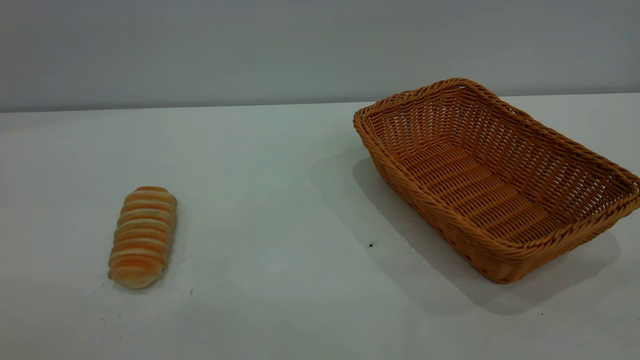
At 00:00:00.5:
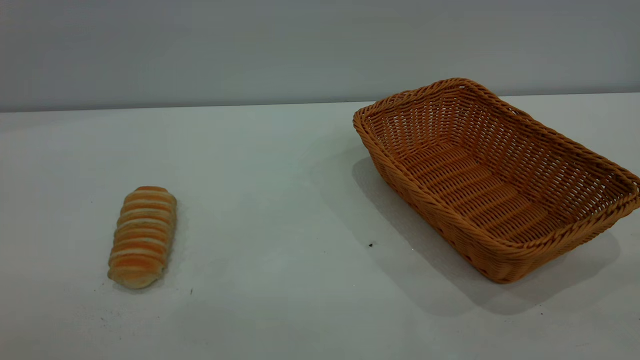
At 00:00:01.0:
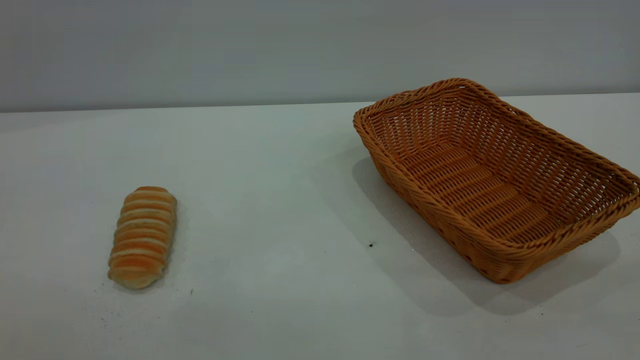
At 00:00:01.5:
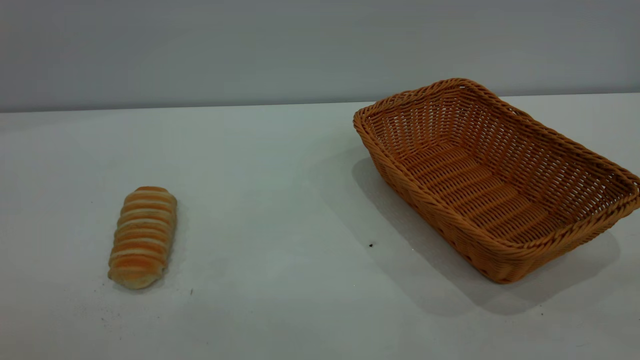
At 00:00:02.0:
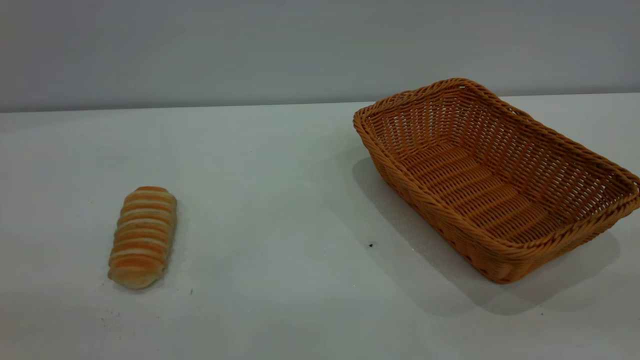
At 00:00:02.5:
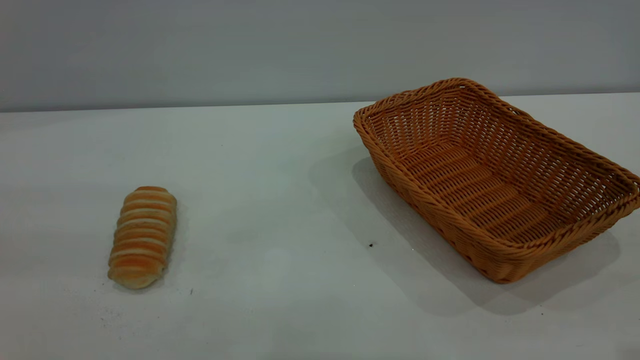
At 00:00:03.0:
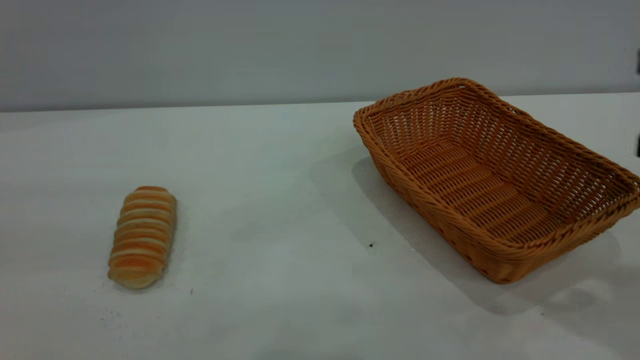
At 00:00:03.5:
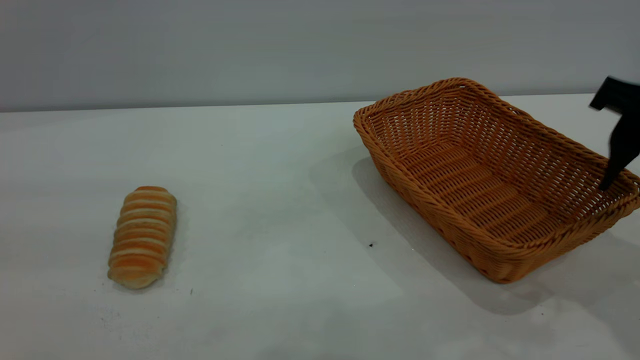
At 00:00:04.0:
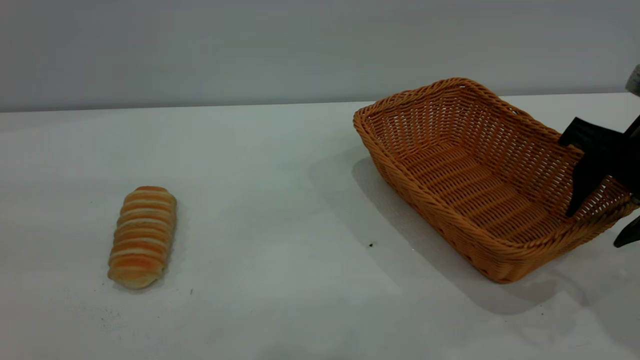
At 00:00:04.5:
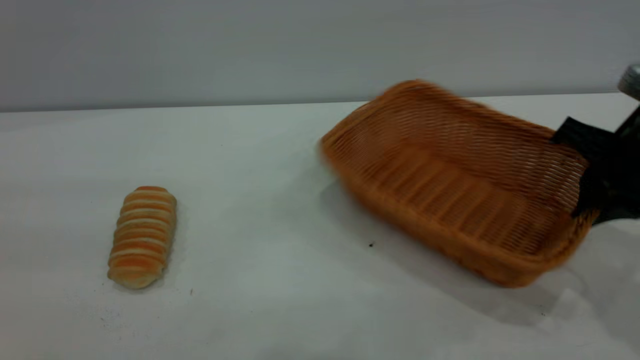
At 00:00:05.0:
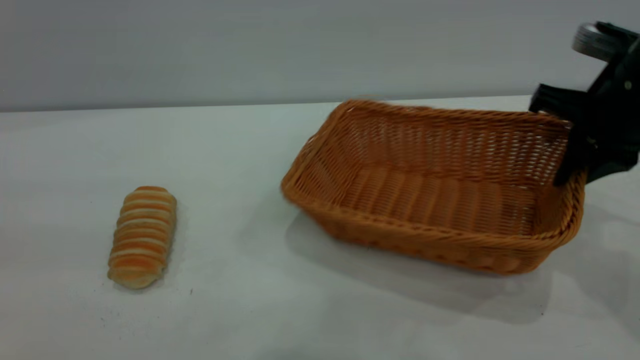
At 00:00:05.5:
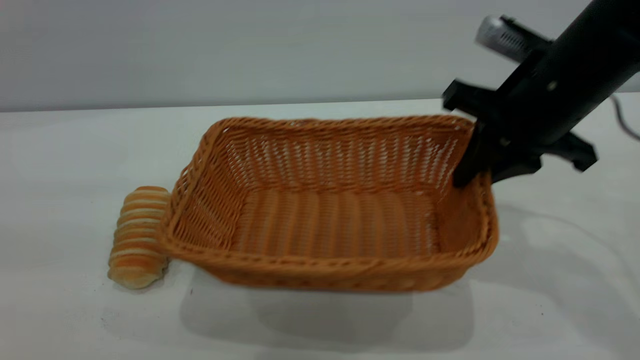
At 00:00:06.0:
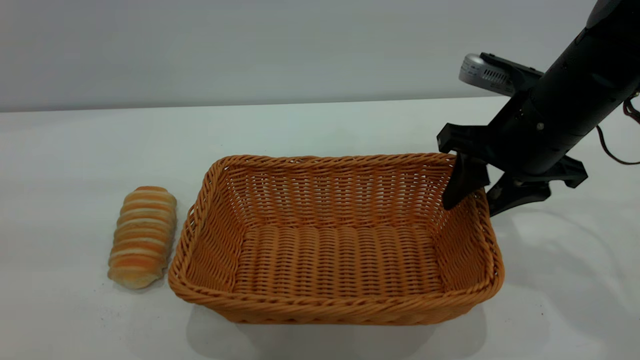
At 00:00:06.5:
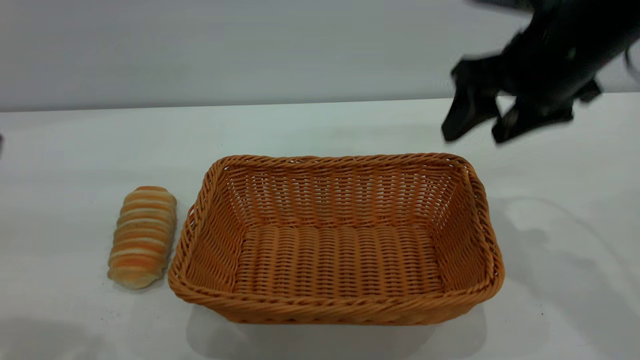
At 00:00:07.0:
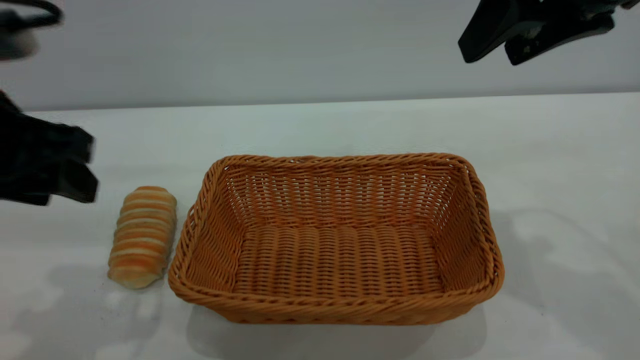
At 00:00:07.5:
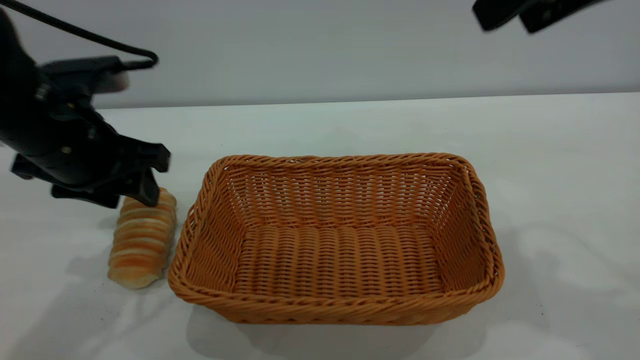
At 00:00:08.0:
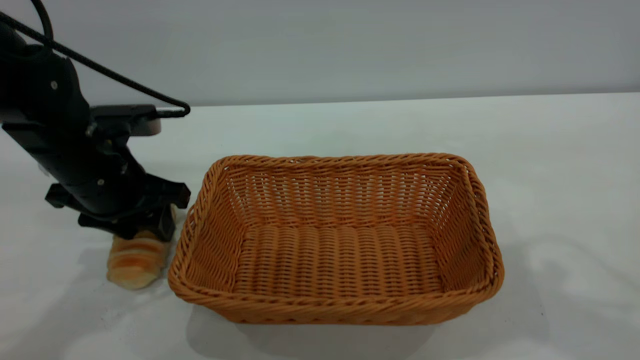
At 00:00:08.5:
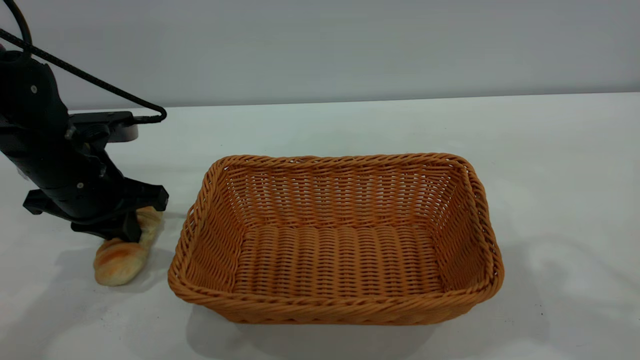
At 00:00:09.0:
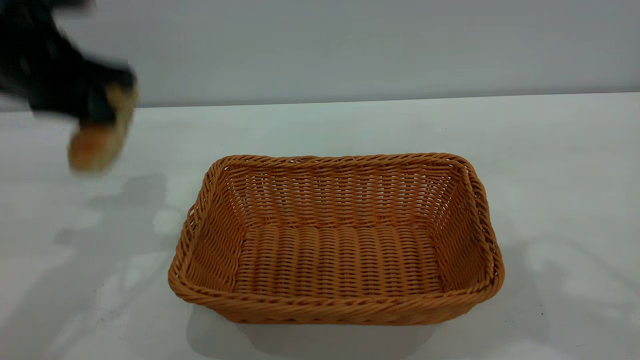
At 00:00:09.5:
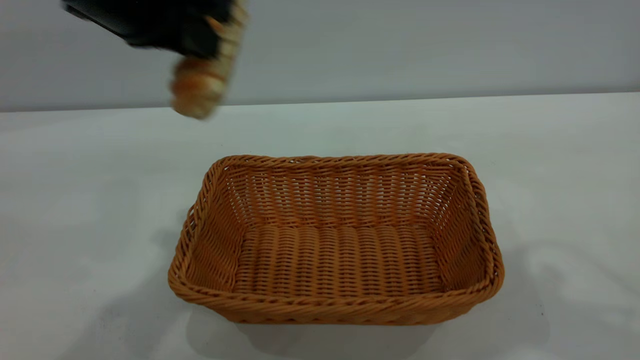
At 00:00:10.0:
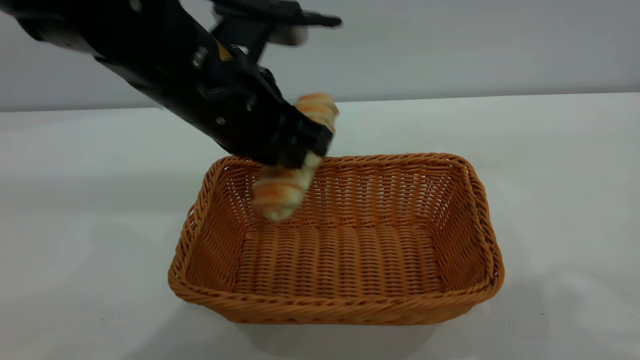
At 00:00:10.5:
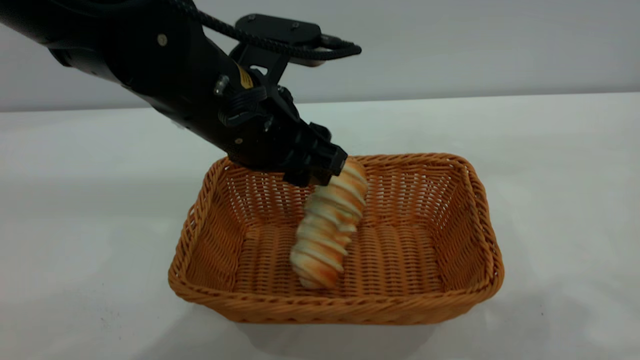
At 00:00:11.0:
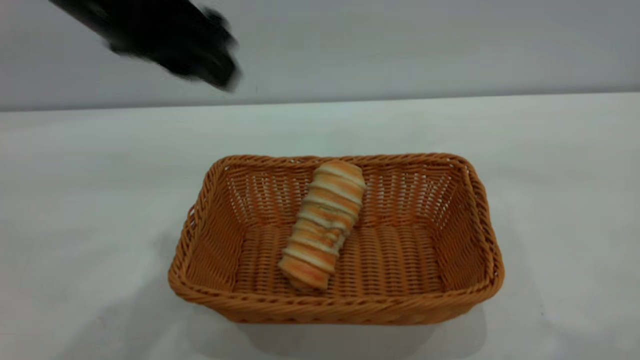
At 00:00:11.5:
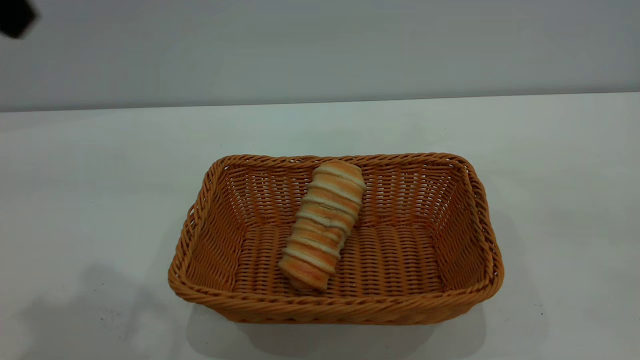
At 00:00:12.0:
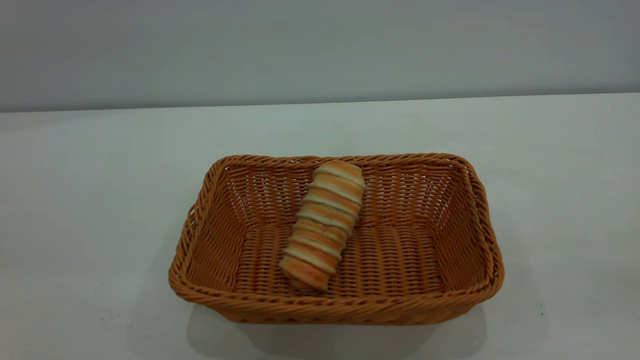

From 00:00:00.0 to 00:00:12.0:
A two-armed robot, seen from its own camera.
Task of the whole recording: One hand grasps the yellow basket and places it in the middle of the table, while the other hand picks up the long bread and puts it into the yellow basket.
Step, from 00:00:00.0 to 00:00:06.0: Move the basket to the center of view.
Step, from 00:00:09.0 to 00:00:10.5: place the bread into the basket.
From 00:00:02.0 to 00:00:04.0: The right gripper shifts some 30 cm forward and downward.
From 00:00:04.0 to 00:00:06.0: The right gripper heads to the left, covering approximately 10 cm, and closes and opens again.
From 00:00:06.0 to 00:00:08.0: The right gripper moves upward, approximately 20 cm, while the left gripper shifts approximately 30 cm downward and forward.
From 00:00:08.0 to 00:00:10.0: The left gripper travels to the right and upward by some 15 cm, and closes its fingers; the right gripper moves about 5 cm.
From 00:00:10.0 to 00:00:12.0: The left gripper travels backward, to the left and upward by roughly 35 cm, and opens. The right gripper is displaced backward by approximately 20 cm.
